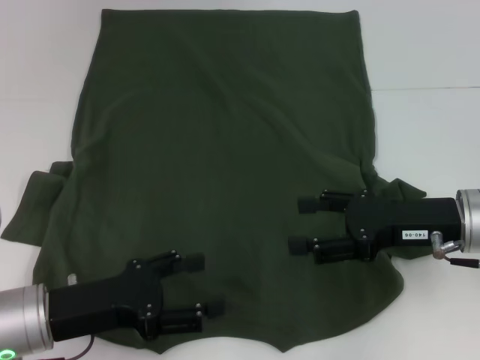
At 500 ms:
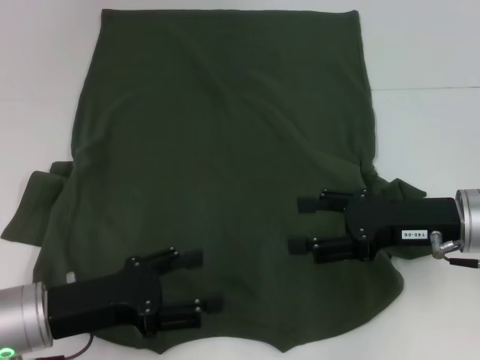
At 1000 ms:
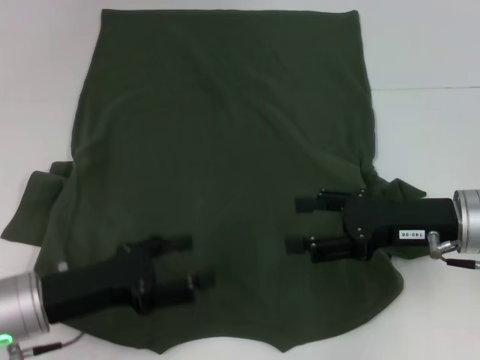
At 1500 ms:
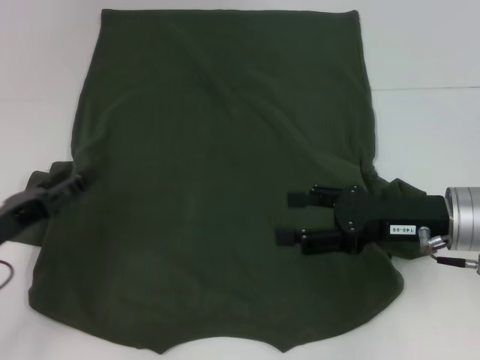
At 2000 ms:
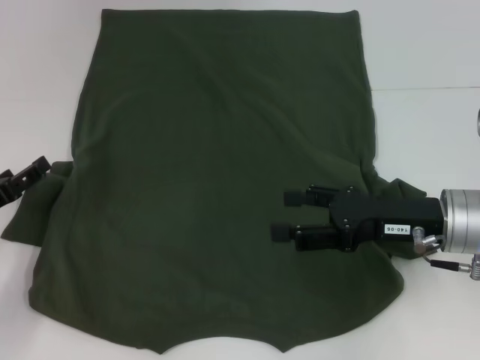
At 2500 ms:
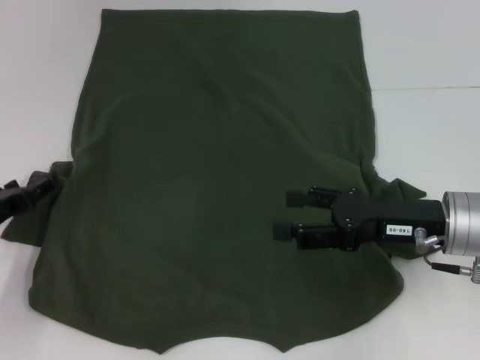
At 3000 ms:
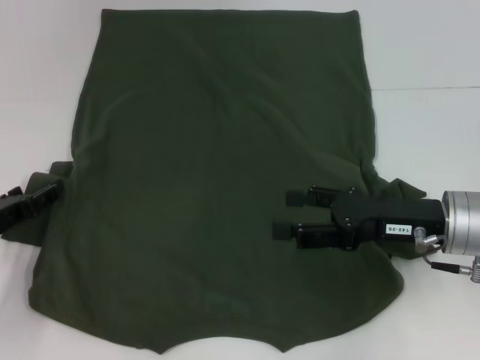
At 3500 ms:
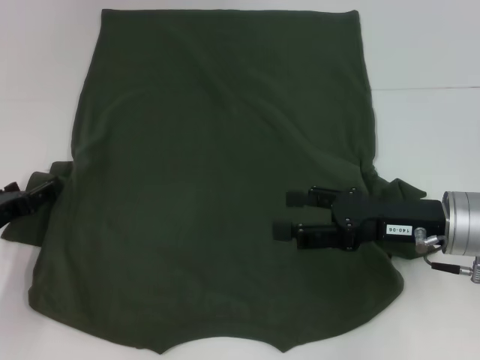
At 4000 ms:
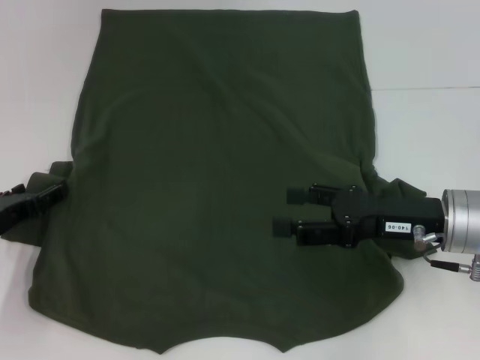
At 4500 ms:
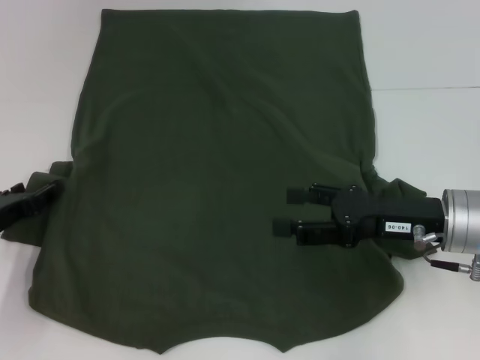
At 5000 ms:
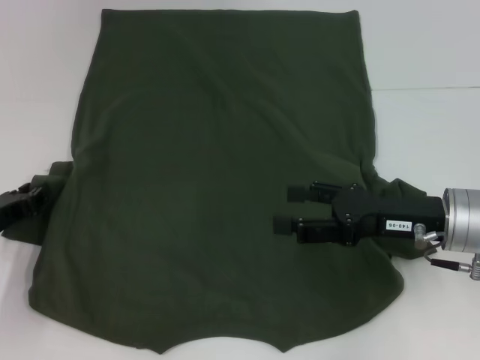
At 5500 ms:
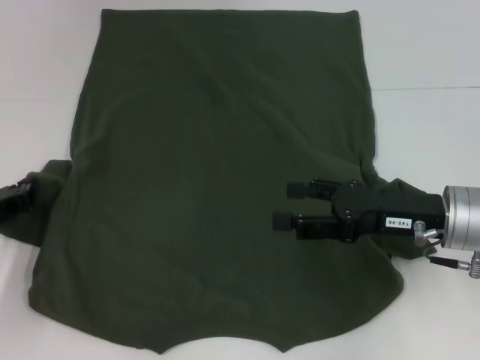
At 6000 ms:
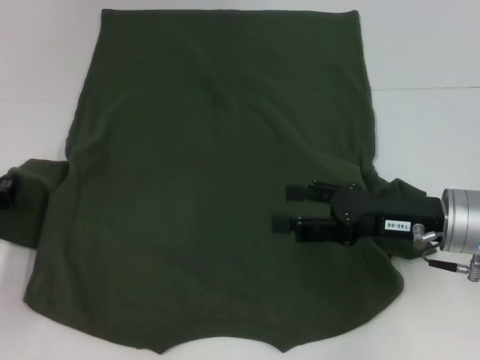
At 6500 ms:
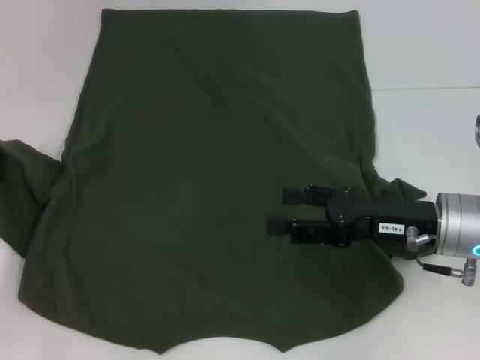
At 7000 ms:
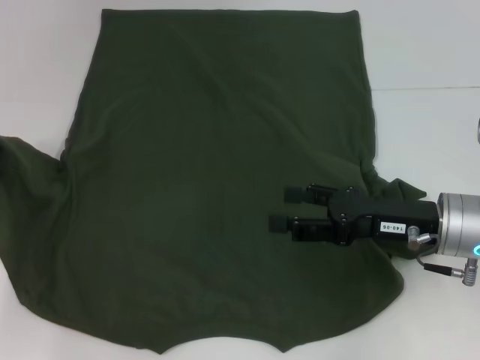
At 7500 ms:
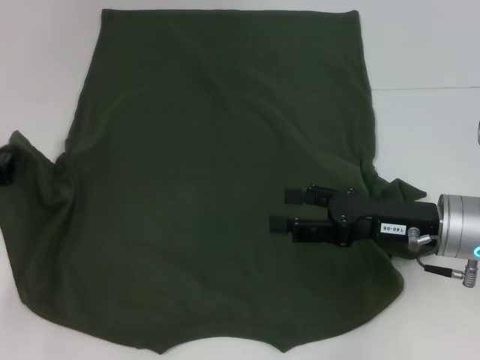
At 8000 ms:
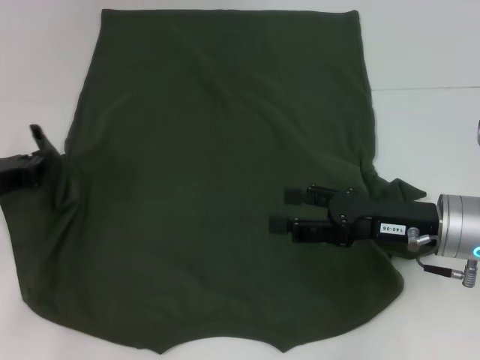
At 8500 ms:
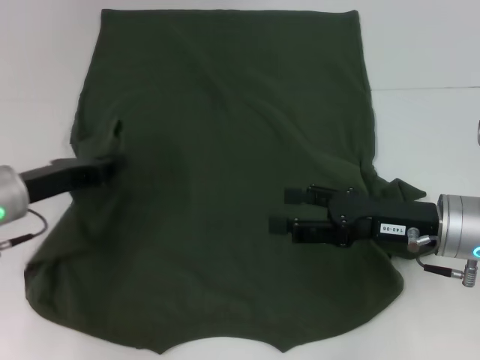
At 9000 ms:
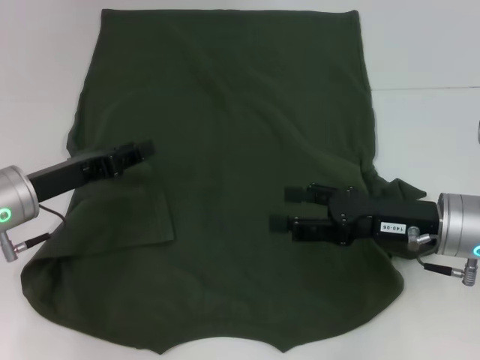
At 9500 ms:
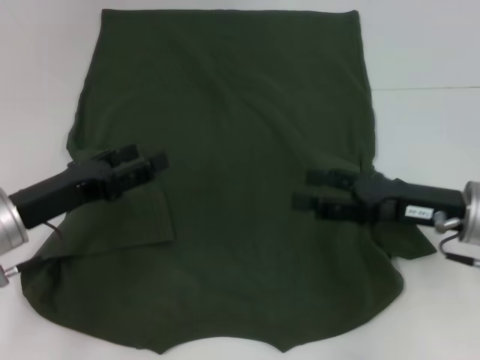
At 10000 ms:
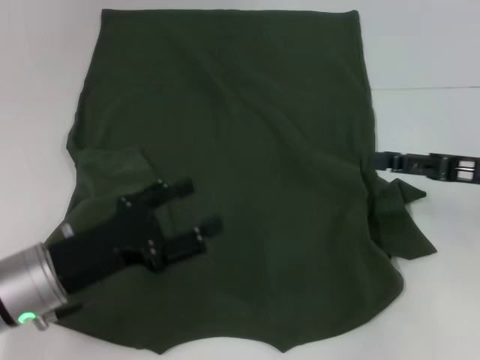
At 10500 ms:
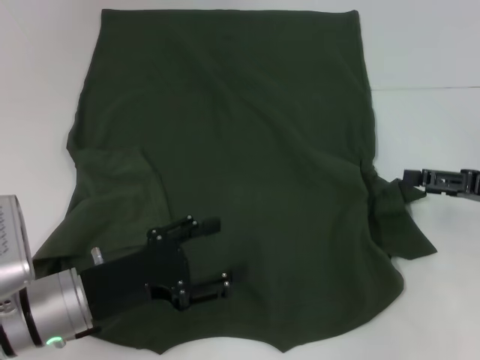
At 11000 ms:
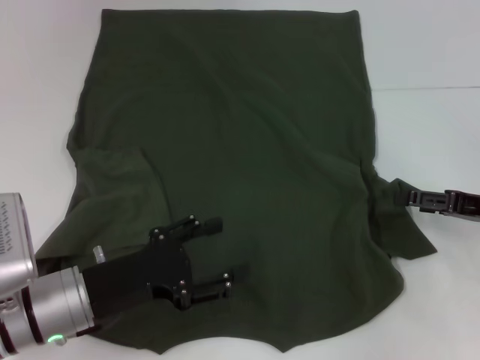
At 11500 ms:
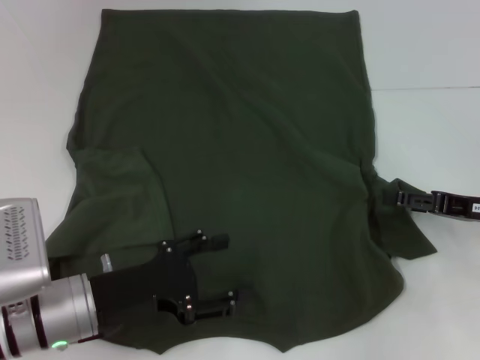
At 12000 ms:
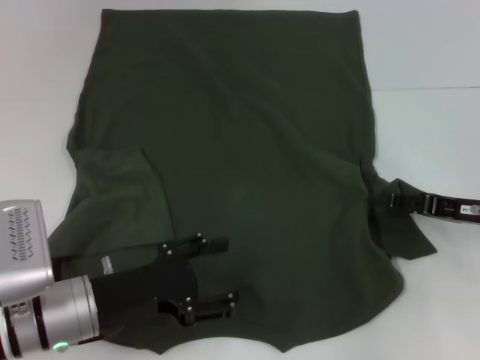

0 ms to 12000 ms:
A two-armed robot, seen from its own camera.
Step, 0 ms to 8500 ms: Fold the bottom left sleeve with your left hand.
0 ms to 2000 ms: The left gripper travels to the left and forward by some 10 cm.
2000 ms to 4000 ms: There are only small adjustments of the grippers.
4000 ms to 6000 ms: The left gripper closes up.
6000 ms to 8000 ms: The left gripper changes place by roughly 5 cm.
8000 ms to 10000 ms: The right gripper is displaced to the right by about 10 cm; the left gripper goes about 10 cm to the right and backward, and opens its fingers.
10000 ms to 12000 ms: The right gripper travels downward by roughly 5 cm.

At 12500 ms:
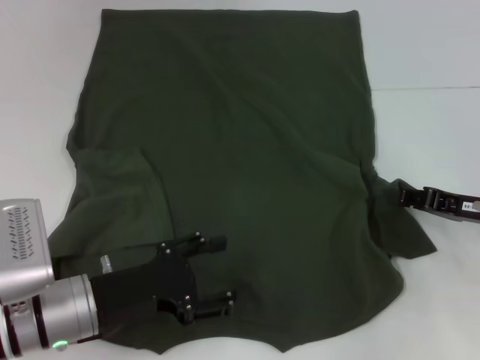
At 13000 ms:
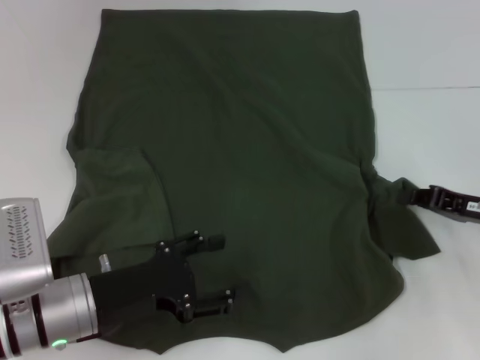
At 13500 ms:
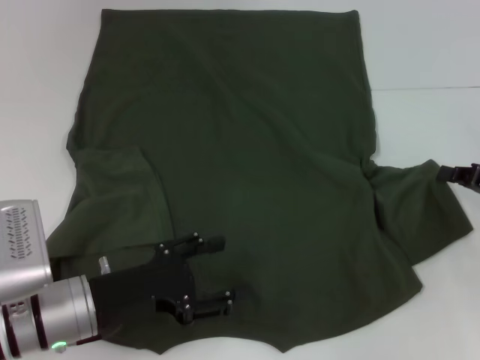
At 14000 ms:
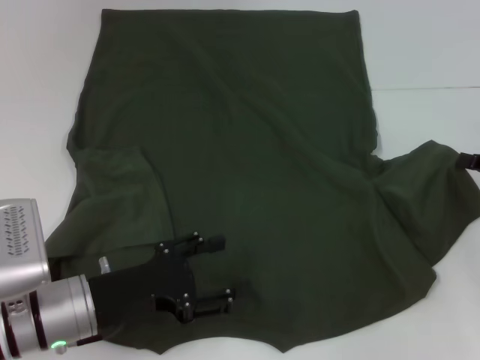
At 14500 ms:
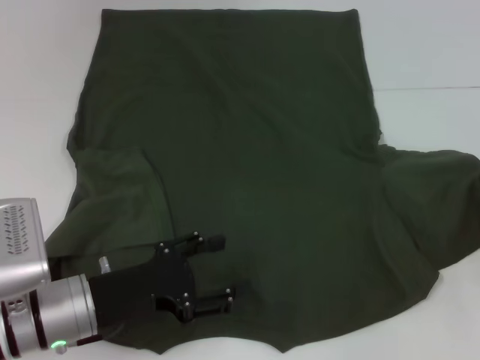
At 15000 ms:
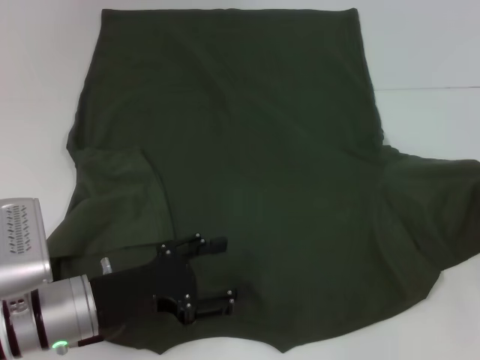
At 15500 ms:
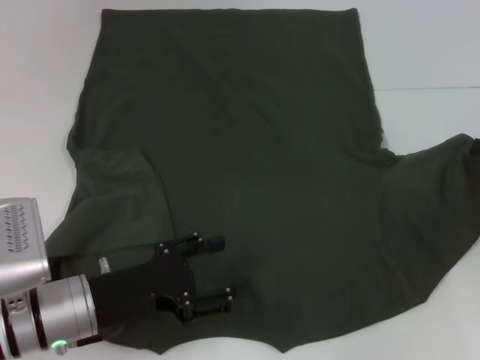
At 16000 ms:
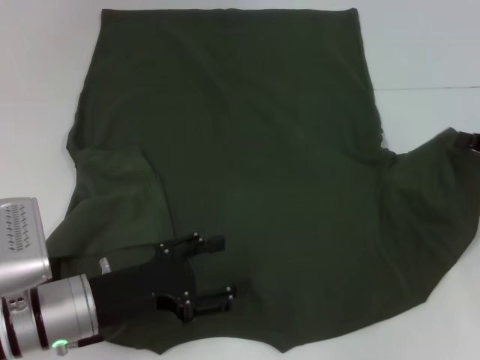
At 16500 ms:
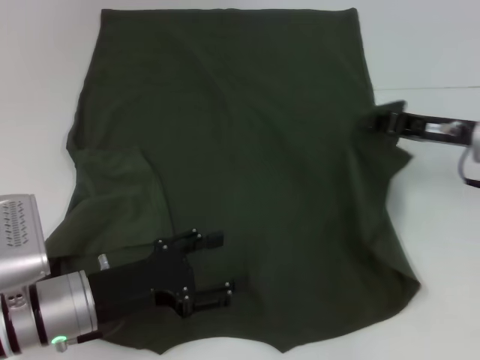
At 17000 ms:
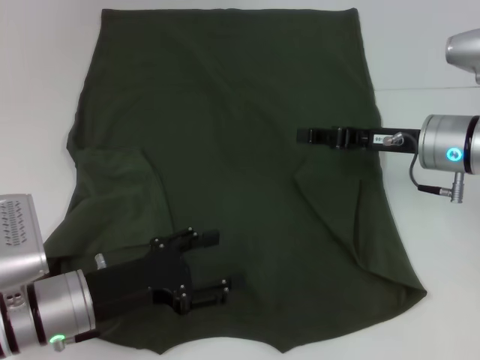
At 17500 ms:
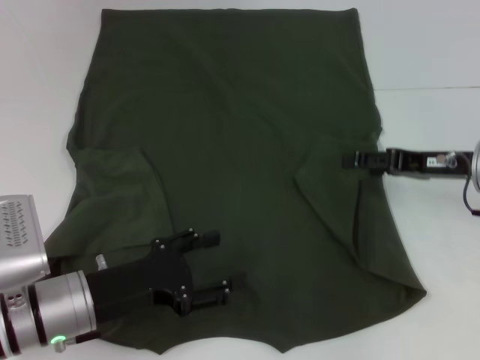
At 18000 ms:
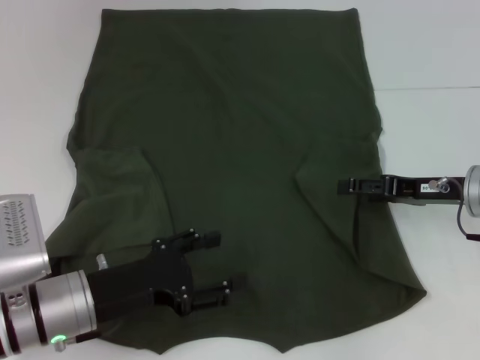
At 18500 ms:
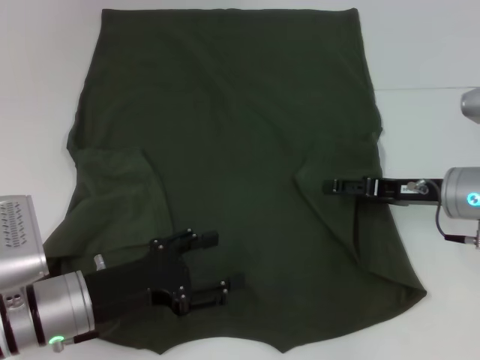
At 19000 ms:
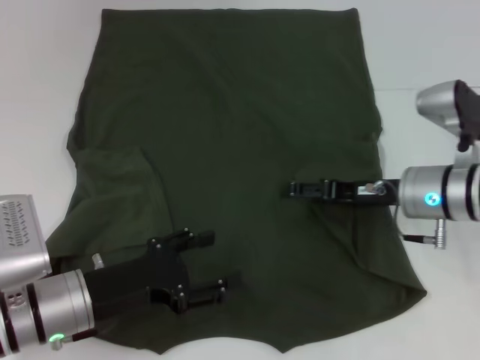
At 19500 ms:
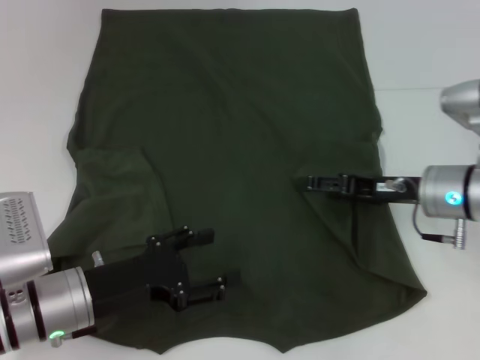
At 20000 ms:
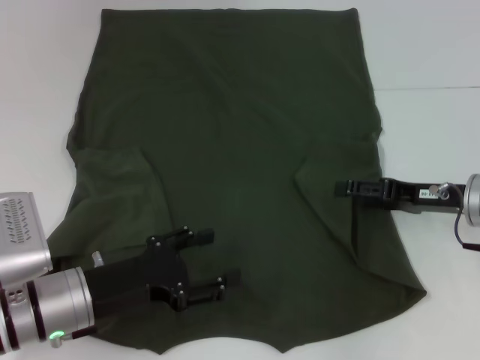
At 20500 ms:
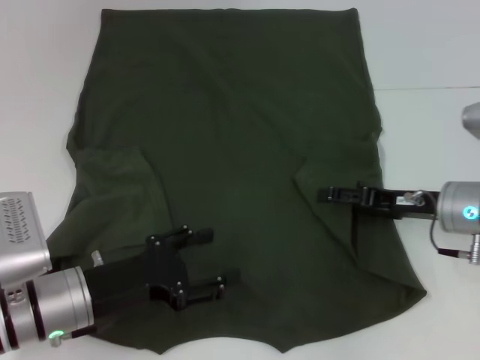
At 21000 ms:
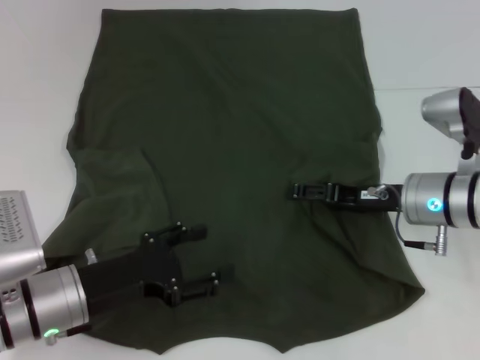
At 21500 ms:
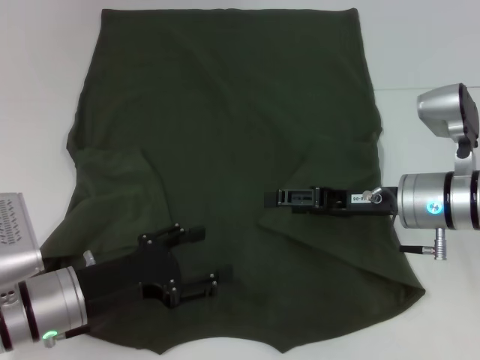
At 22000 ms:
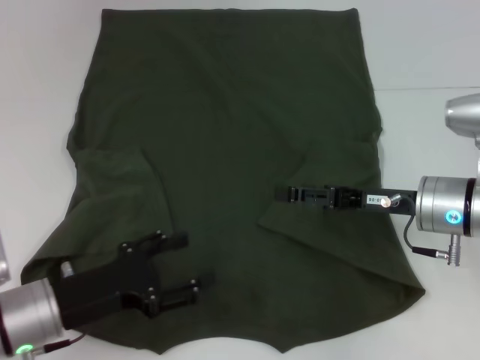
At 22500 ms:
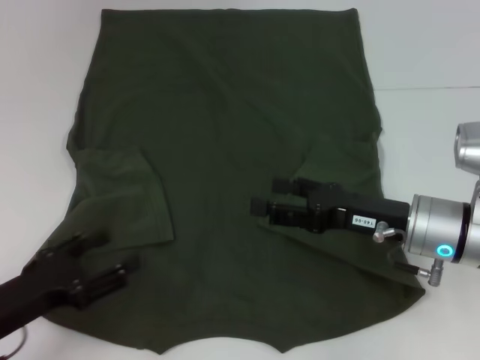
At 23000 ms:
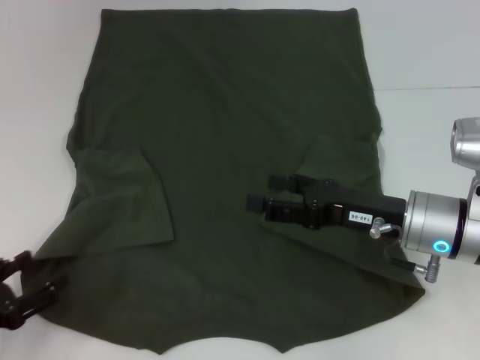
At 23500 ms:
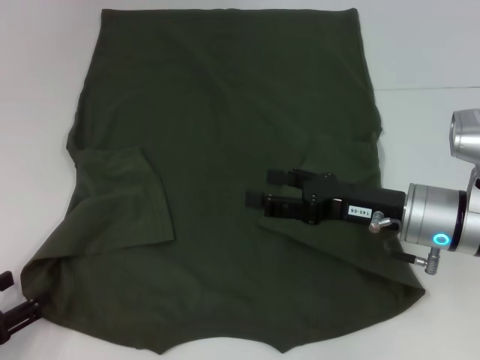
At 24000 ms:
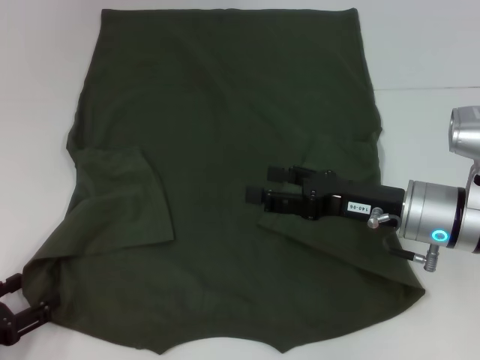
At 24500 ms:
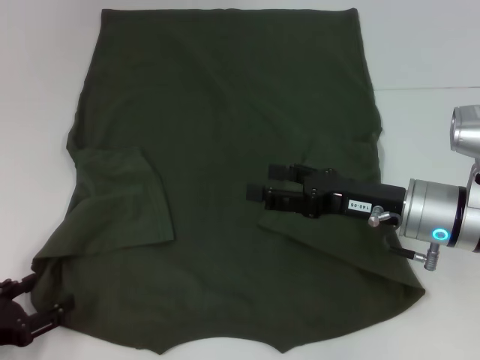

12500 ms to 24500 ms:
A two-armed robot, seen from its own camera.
Step, 12500 ms to 21000 ms: Fold the bottom right sleeve with your right hand.
12500 ms to 14500 ms: The right gripper goes roughly 10 cm to the right.
14500 ms to 16500 ms: The right gripper heads to the left and forward, covering some 15 cm.
16500 ms to 18500 ms: The right gripper ends up about 5 cm from where it was, and opens its fingers.
18500 ms to 20500 ms: There are only small adjustments of the grippers.
20500 ms to 22500 ms: The left gripper shifts some 10 cm to the left. The right gripper moves to the left, roughly 5 cm.
22500 ms to 24500 ms: The left gripper moves some 5 cm.

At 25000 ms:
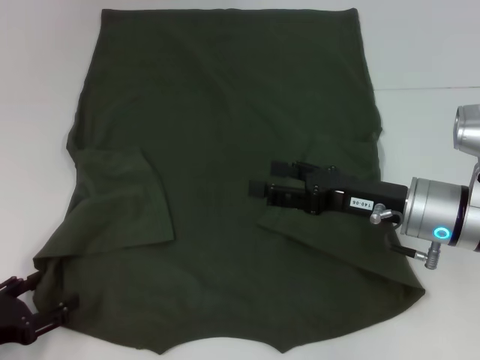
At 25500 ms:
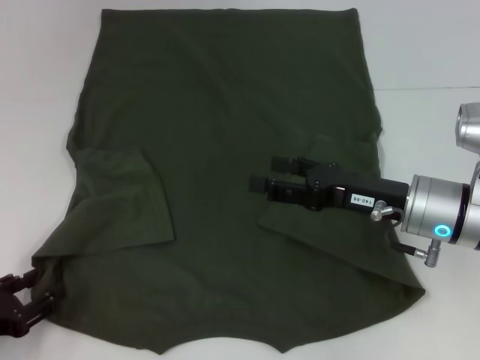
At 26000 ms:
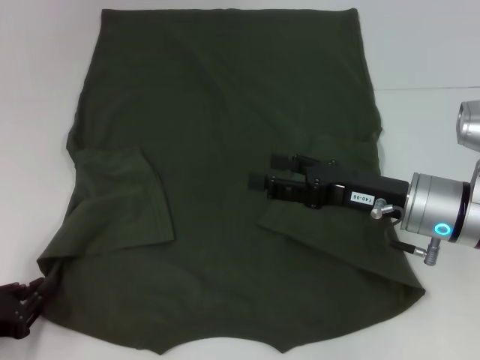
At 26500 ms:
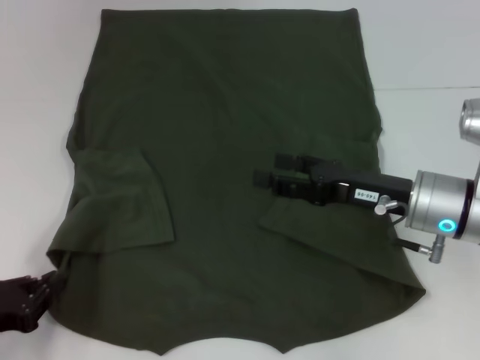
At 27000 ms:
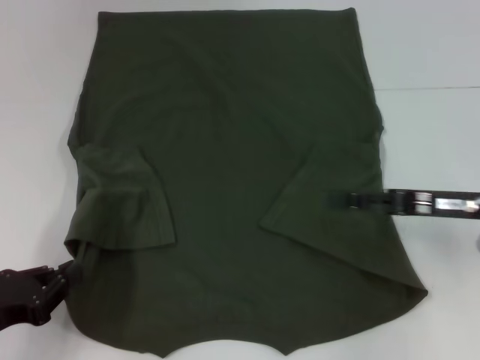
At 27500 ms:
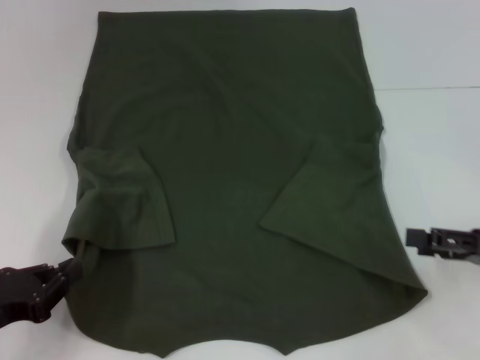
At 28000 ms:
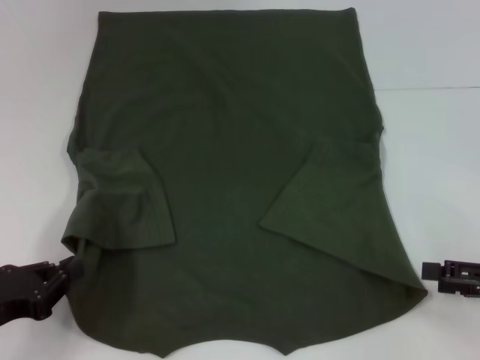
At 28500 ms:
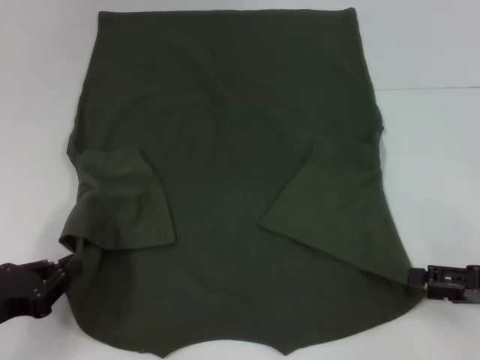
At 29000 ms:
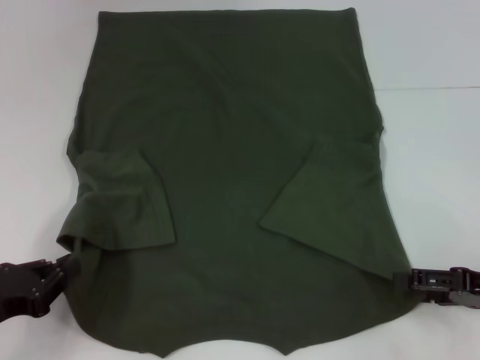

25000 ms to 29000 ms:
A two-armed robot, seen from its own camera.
25000 ms to 27000 ms: The right gripper heads to the right, covering approximately 10 cm, while the left gripper closes up.
27000 ms to 29000 ms: The right gripper heads to the right and backward, covering about 10 cm.
